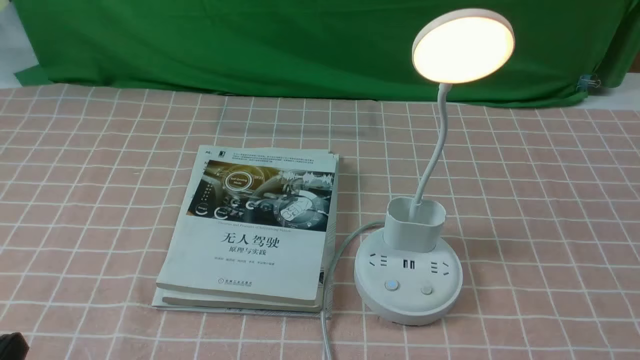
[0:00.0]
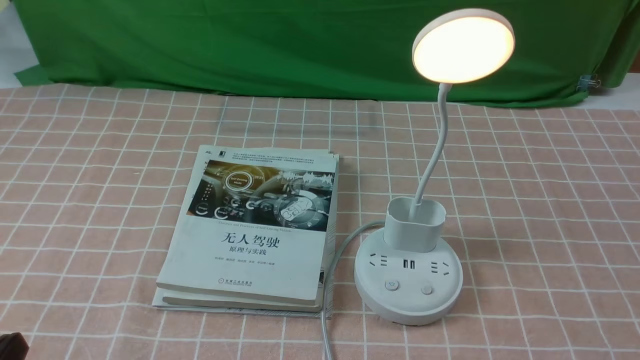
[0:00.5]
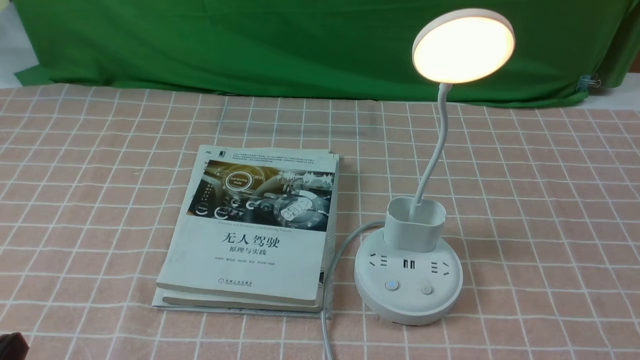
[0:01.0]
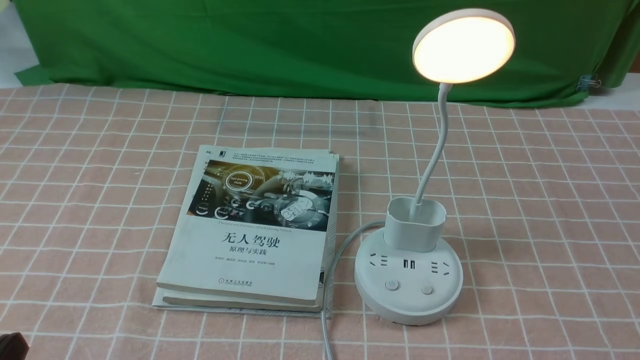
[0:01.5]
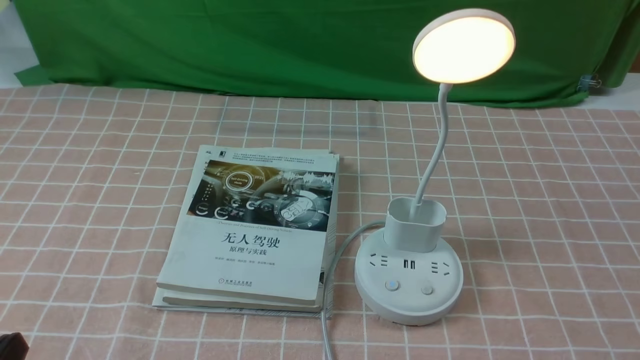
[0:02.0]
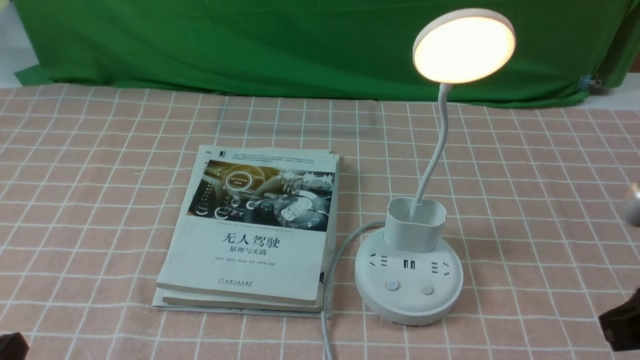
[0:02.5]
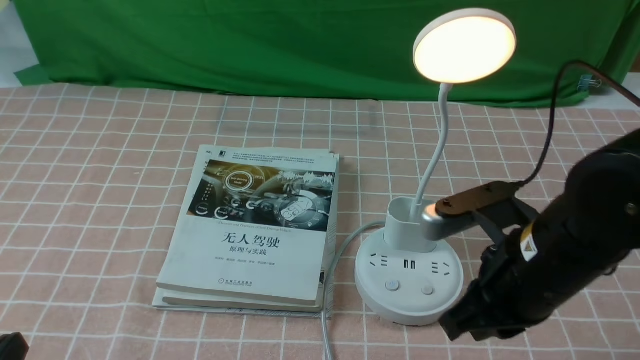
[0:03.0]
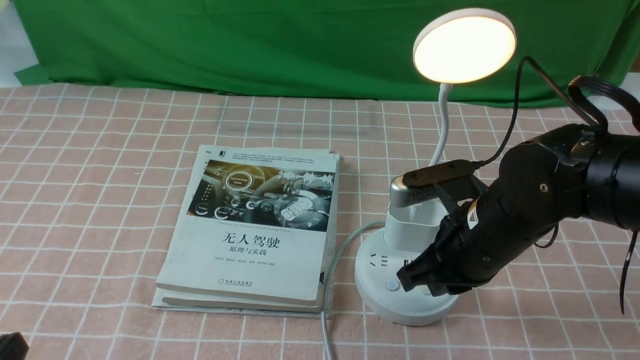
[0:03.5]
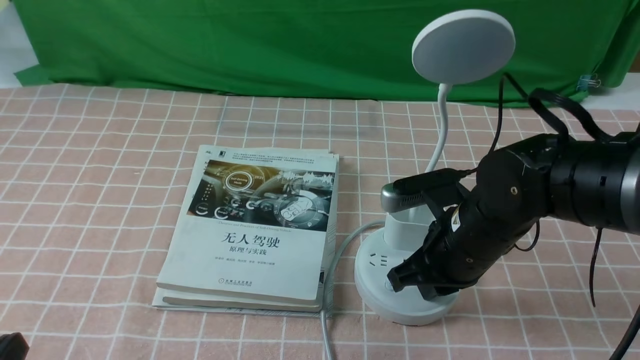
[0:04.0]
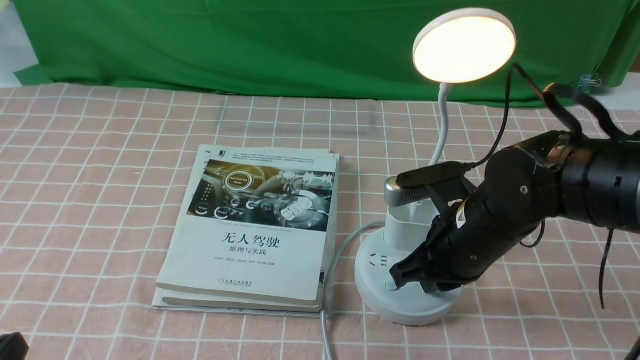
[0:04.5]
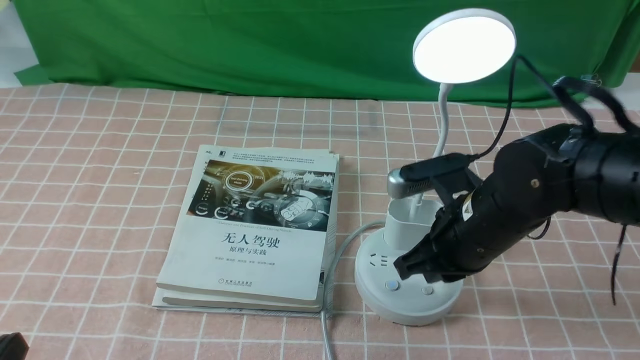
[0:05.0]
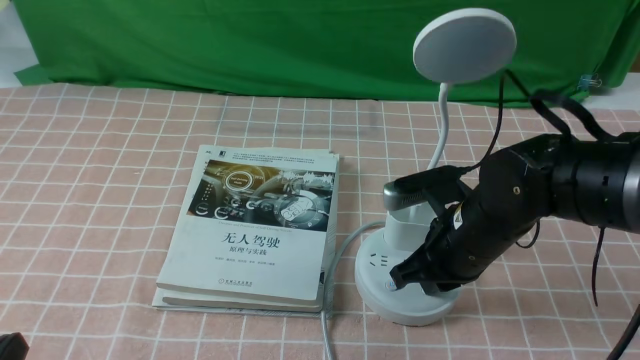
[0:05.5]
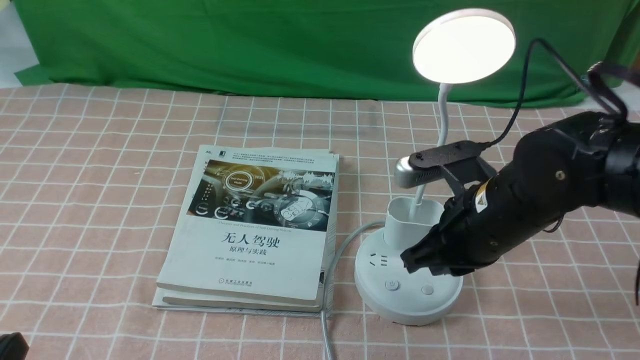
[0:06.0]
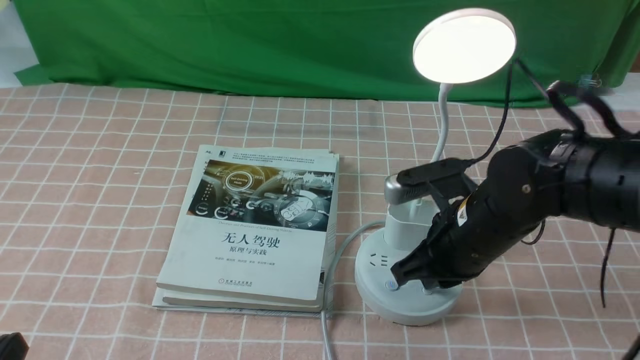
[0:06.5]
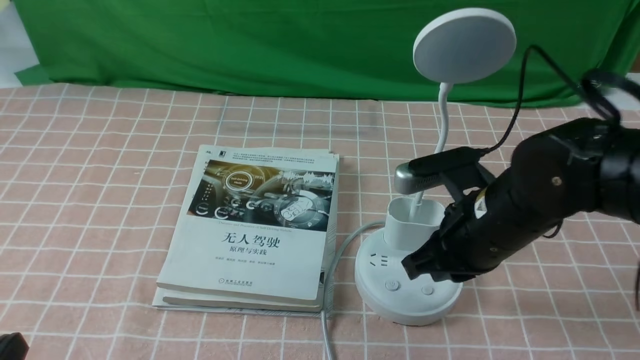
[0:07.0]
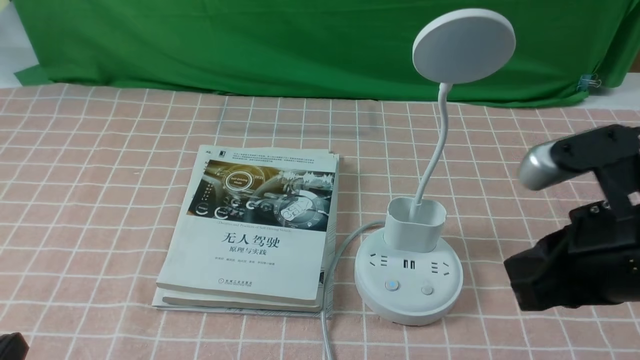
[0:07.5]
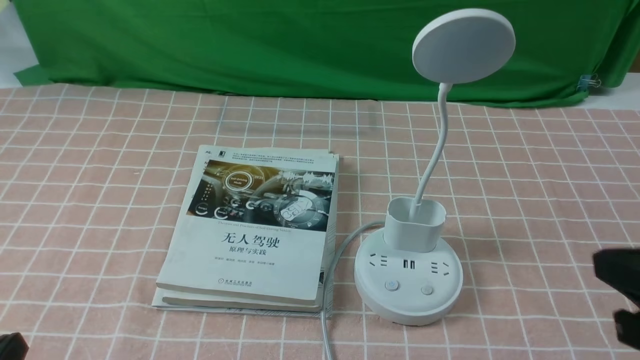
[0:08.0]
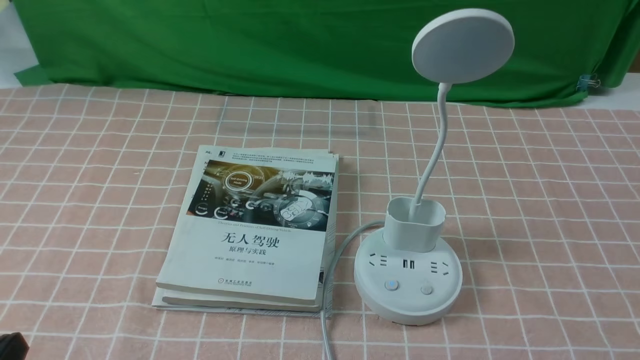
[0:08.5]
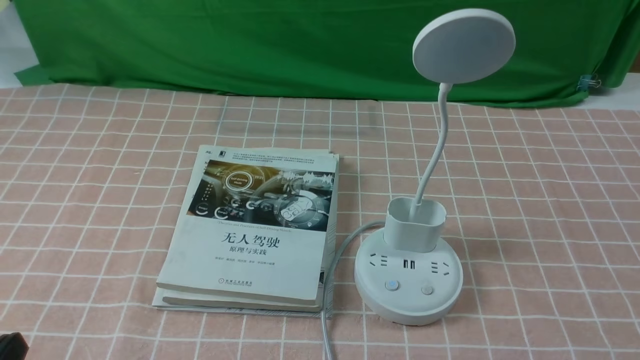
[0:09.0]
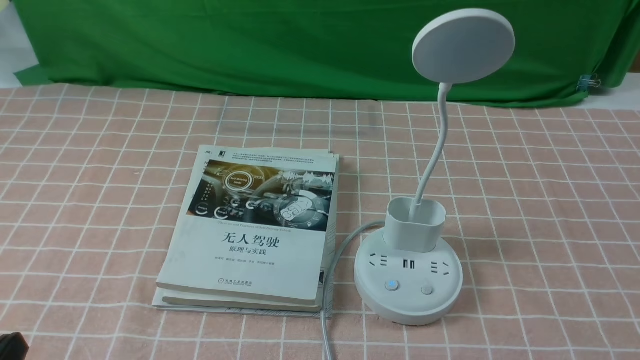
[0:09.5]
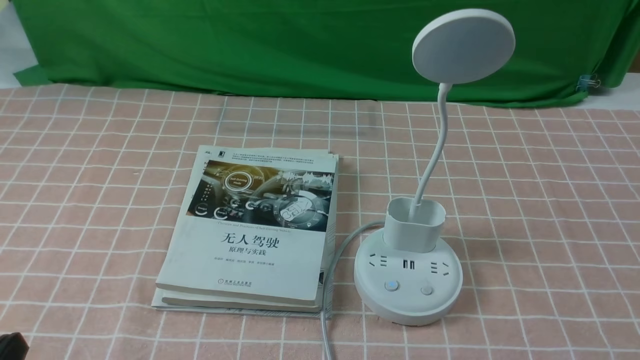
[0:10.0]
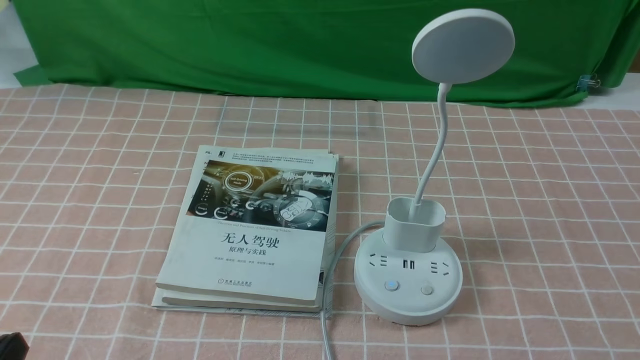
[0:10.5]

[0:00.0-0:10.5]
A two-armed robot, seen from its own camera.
Task of the whole recording: turn off the table lamp on the pink coffee tablecloth by hand.
Step, 0:00.0 to 0:06.5: use the right arm to press the button switch on the lamp holder.
0:02.0 to 0:04.0: The right gripper is displaced forward and to the left by some 30 cm, and closes up.
0:04.0 to 0:06.5: There are only small adjustments of the grippers.
0:06.5 to 0:08.5: The right gripper is displaced backward and to the right by about 30 cm.
